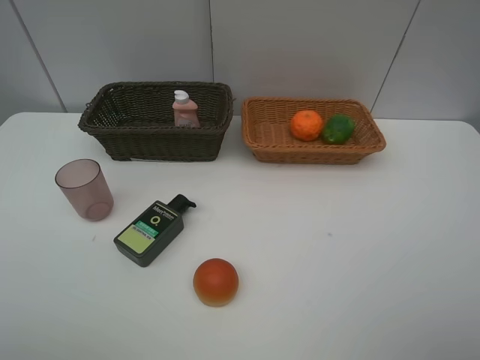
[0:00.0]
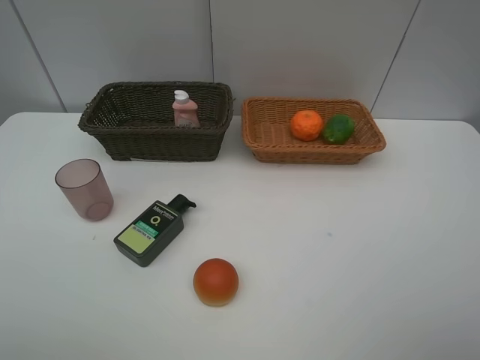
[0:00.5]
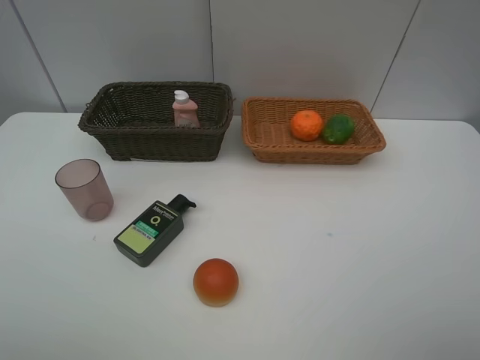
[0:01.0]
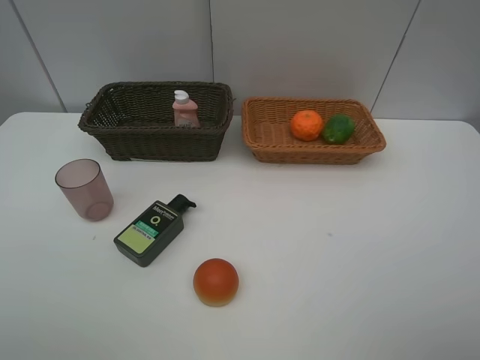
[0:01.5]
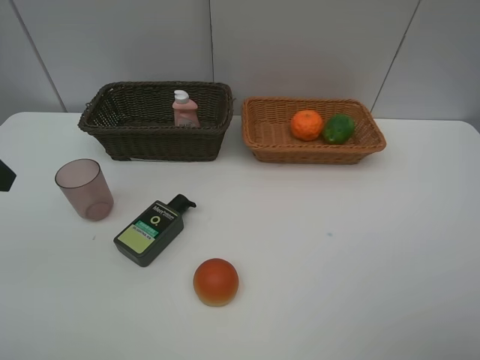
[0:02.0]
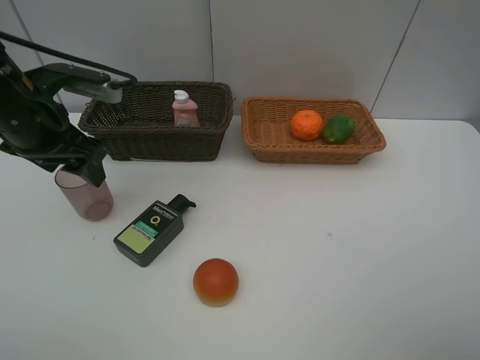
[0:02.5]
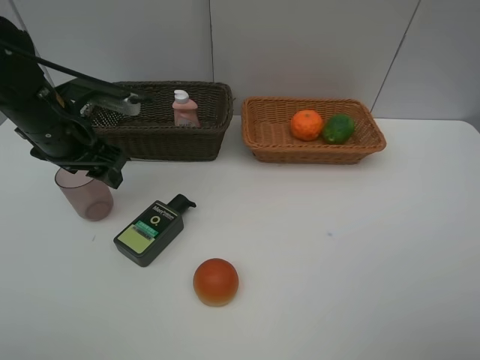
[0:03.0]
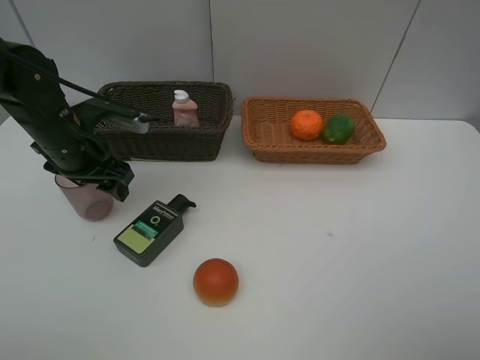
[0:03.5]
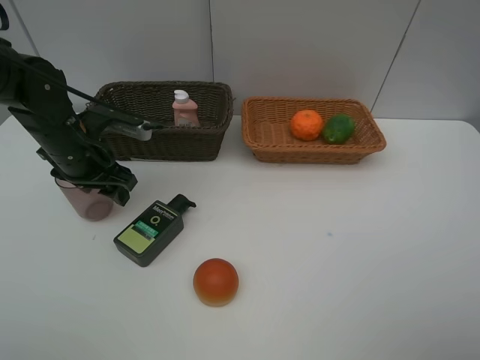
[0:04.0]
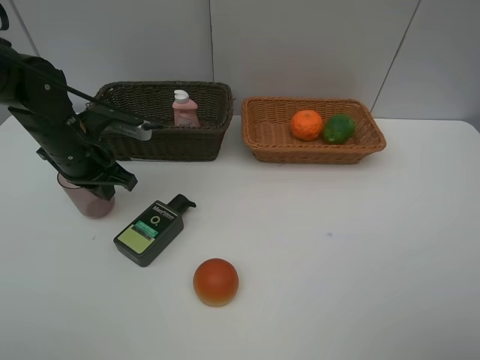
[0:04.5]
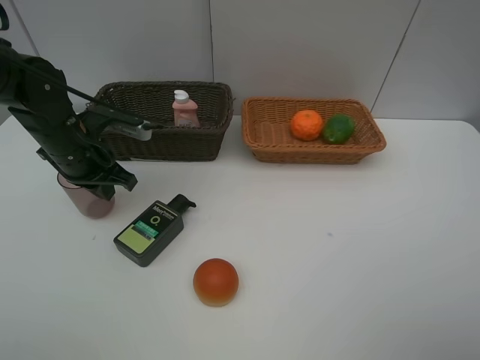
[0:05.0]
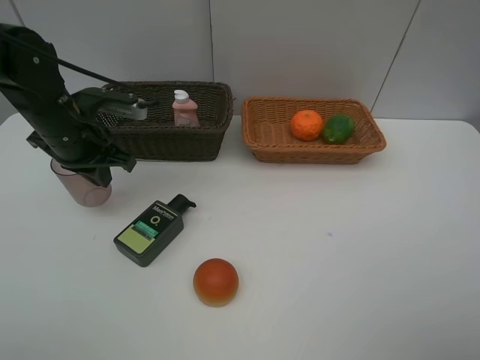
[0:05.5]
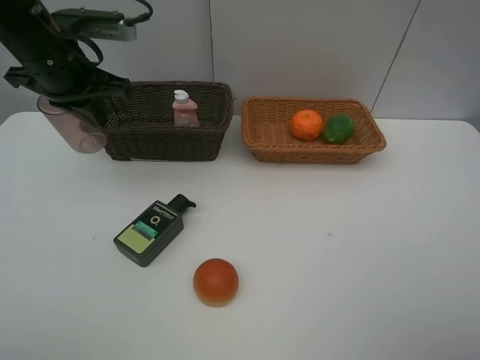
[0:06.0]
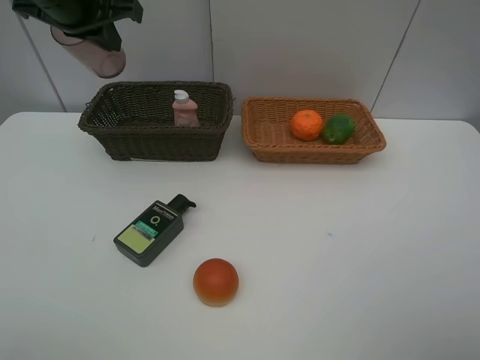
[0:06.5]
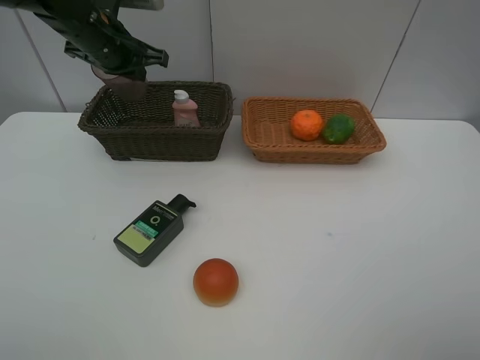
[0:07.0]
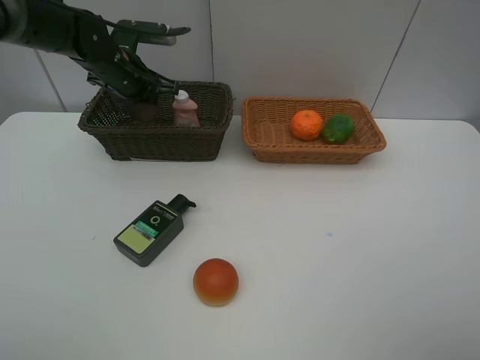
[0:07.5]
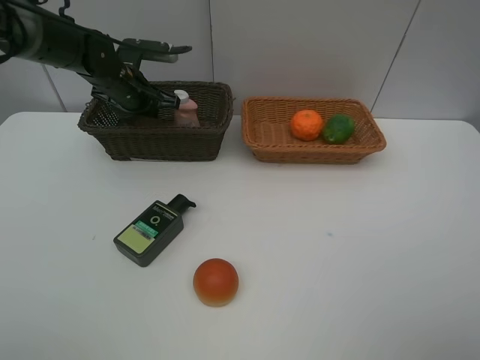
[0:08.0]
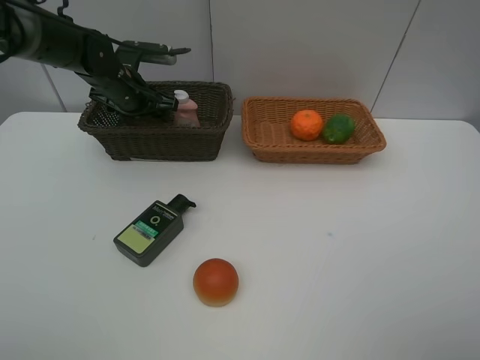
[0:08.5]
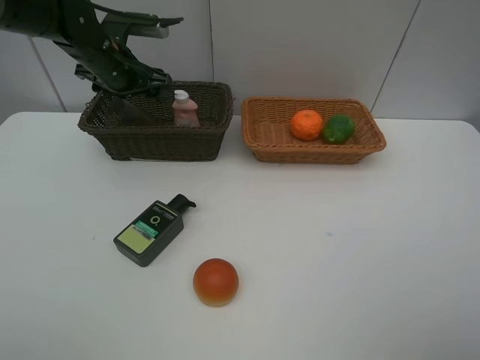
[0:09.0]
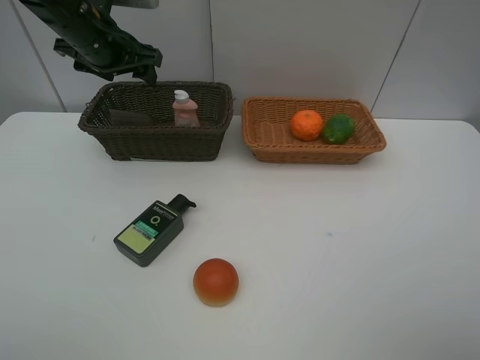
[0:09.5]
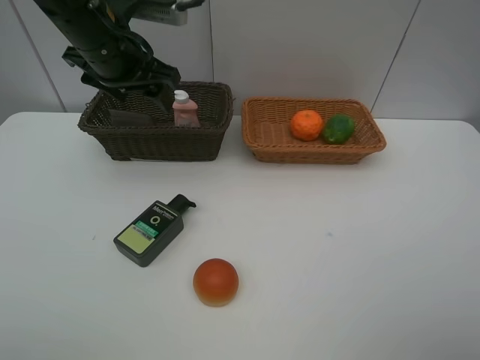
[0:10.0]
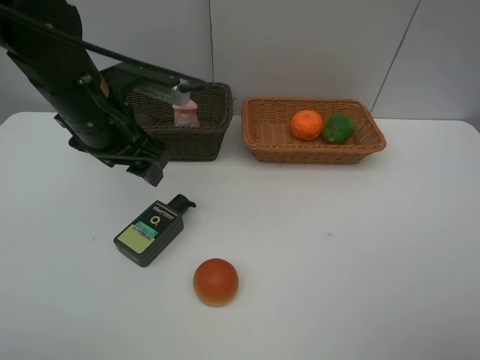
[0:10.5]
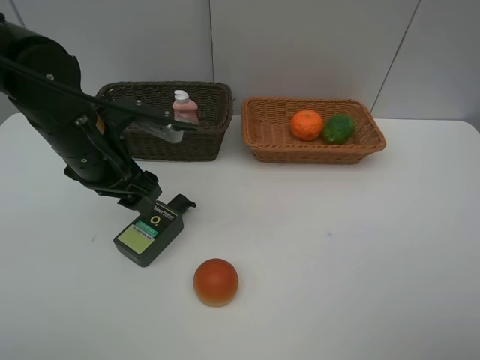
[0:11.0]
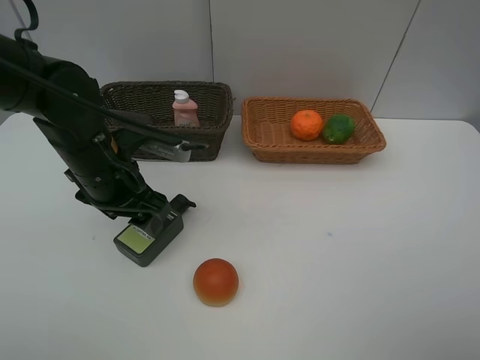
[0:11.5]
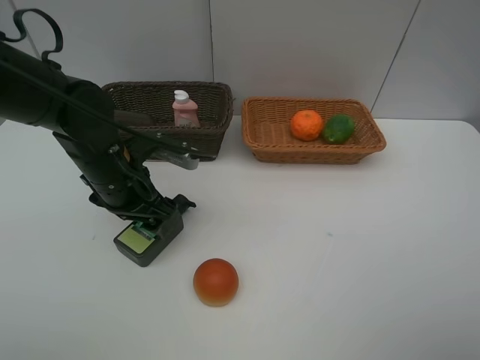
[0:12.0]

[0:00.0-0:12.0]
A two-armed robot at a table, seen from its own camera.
Task of the whole recording: place multiple objects separately in different baskets.
0:02.0 to 0:04.0: The left gripper moves downward, forward and to the right, roughly 20 cm.
0:04.0 to 0:06.0: The left gripper is displaced upward by approximately 10 cm, and closes.
0:06.0 to 0:08.0: The left gripper travels forward and downward by roughly 15 cm.
0:08.0 to 0:10.0: The left gripper is displaced upward and backward by roughly 15 cm, and opens.
0:10.0 to 0:12.0: The left gripper travels downward and backward by some 15 cm.

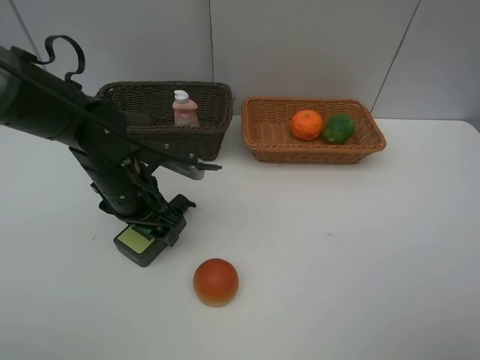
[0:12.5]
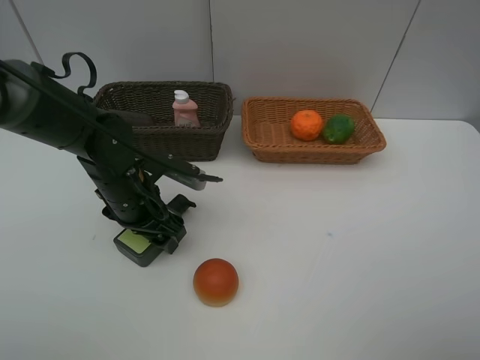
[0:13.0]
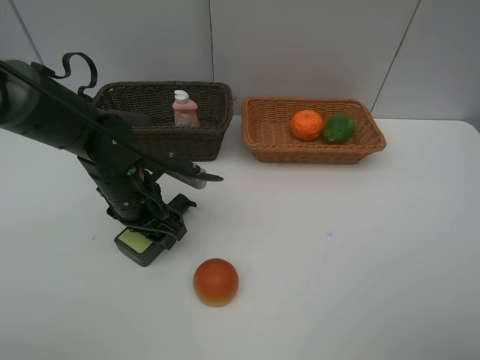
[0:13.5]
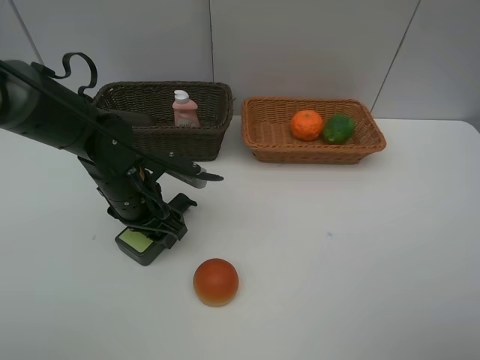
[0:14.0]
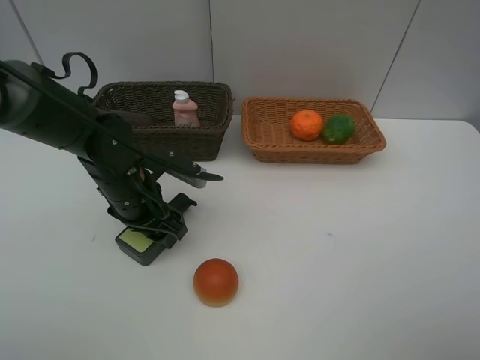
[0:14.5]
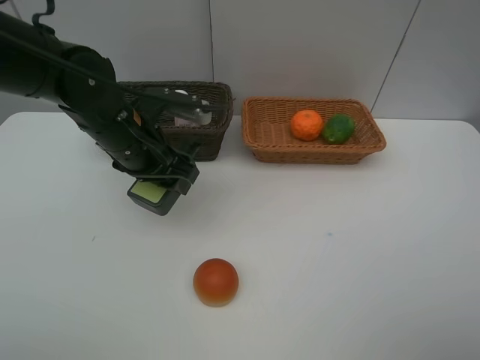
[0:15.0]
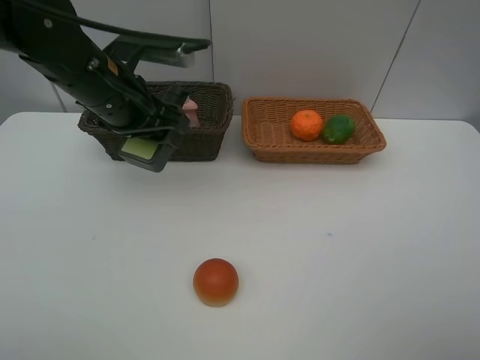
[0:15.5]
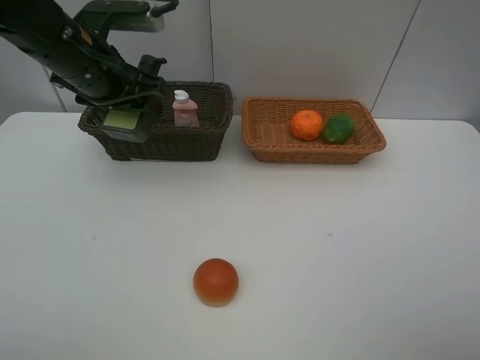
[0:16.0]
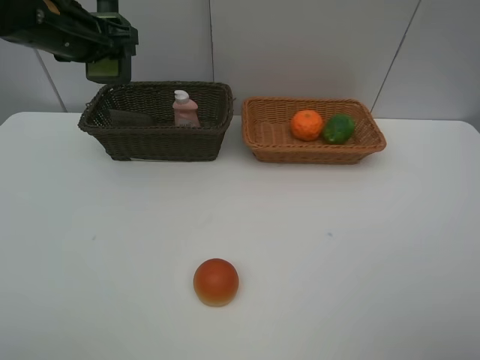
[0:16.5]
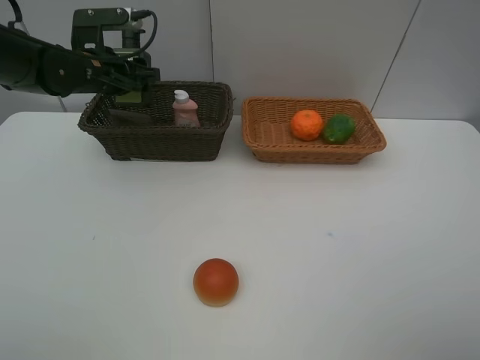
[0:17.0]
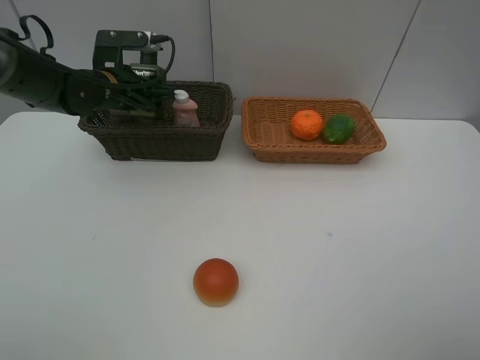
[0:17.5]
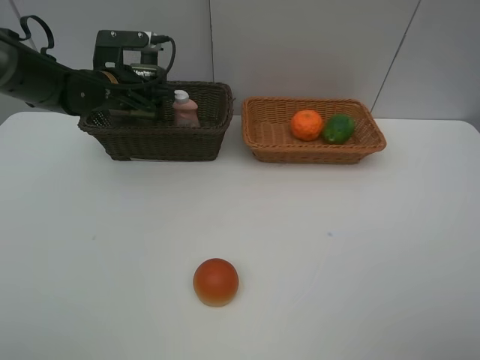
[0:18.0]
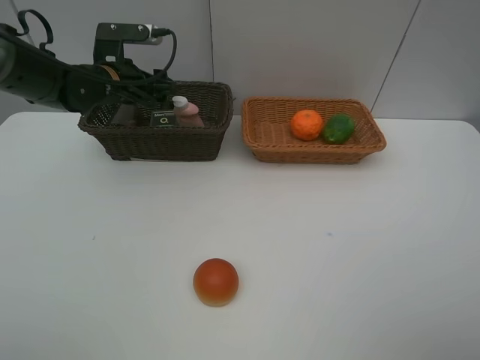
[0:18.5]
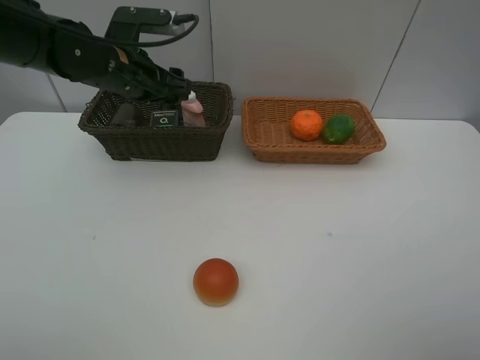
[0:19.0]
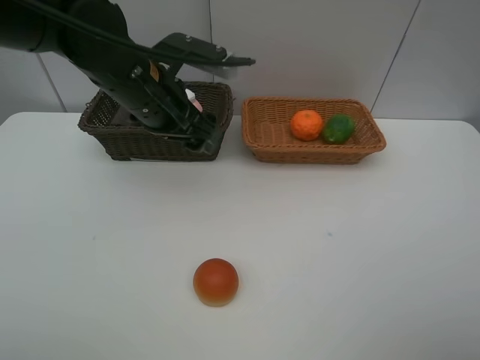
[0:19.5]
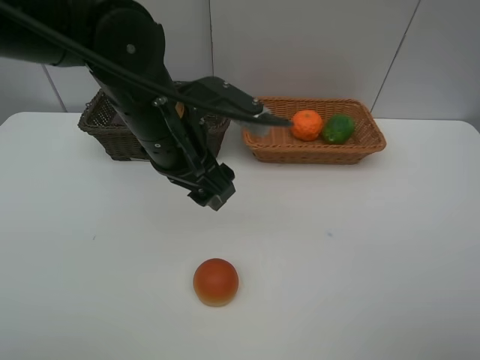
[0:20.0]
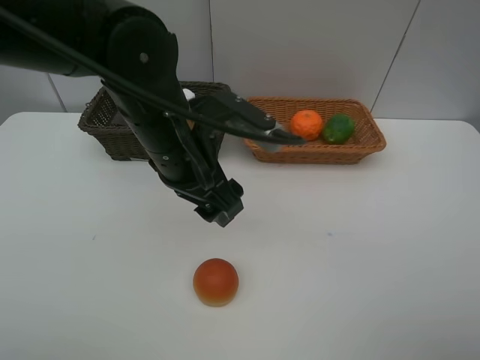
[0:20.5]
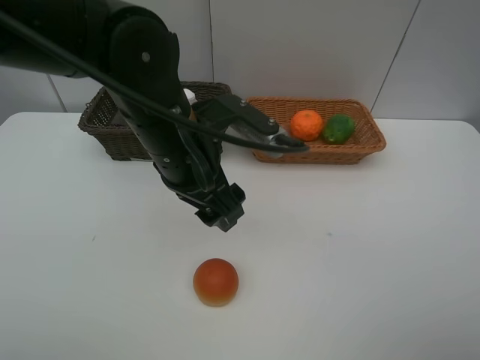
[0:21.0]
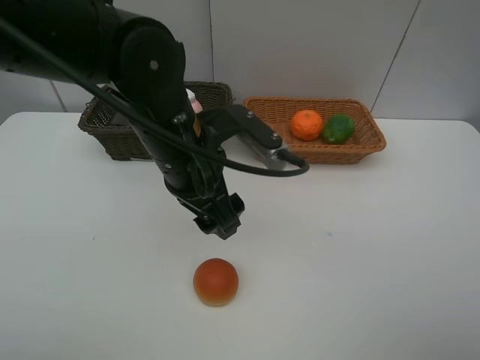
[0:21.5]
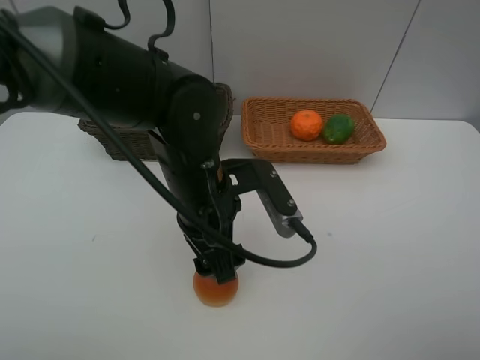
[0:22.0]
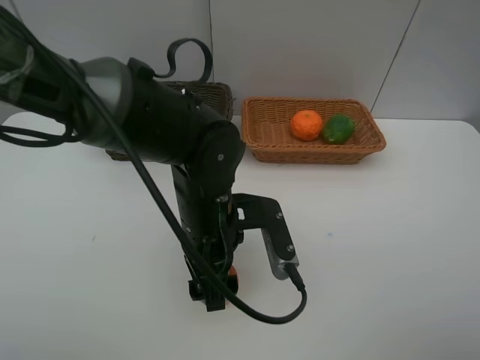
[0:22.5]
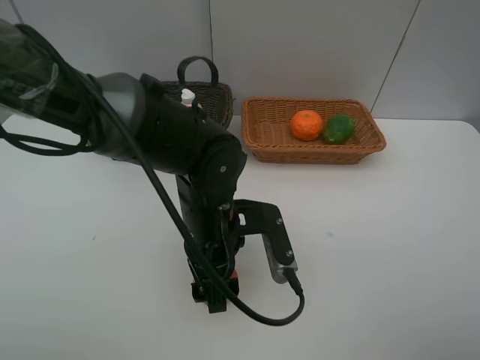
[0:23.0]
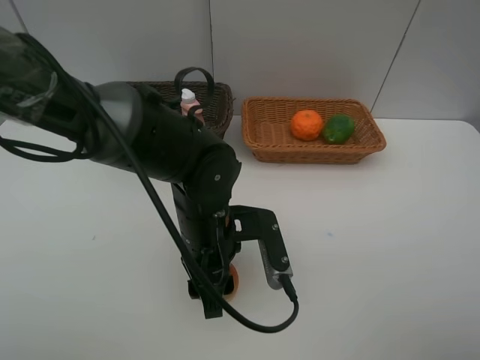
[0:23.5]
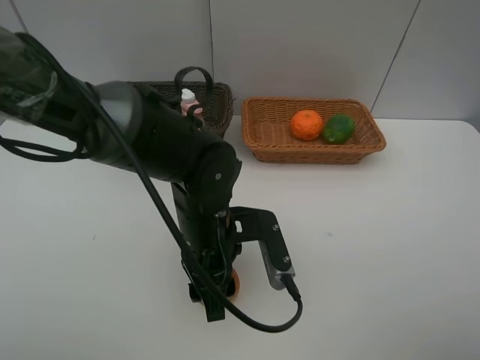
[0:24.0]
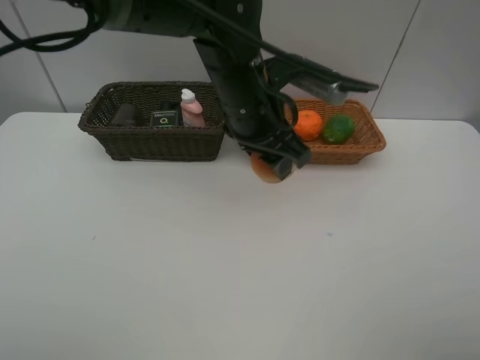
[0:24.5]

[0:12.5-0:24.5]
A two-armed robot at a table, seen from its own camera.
Task of the whole recording: place multiple objects separately in different baskets.
0:12.5 to 0:14.5: The grippers stay close to where they were, moving slightly.
0:14.5 to 0:16.5: The left gripper travels upward, forward and to the left by approximately 20 cm.
0:16.5 to 0:18.5: The left gripper is displaced downward by approximately 10 cm.
0:18.5 to 0:20.5: The left gripper heads backward and to the right, covering roughly 20 cm.
0:20.5 to 0:22.5: The left gripper shifts about 10 cm downward.
0:22.5 to 0:24.5: The left gripper heads forward and upward, covering roughly 15 cm.

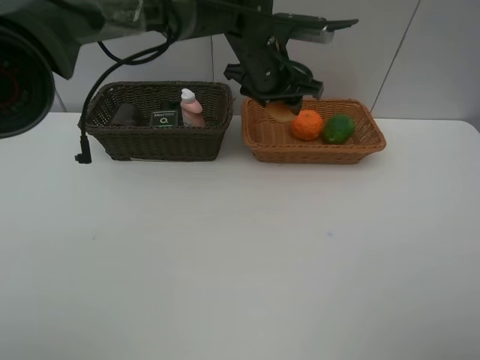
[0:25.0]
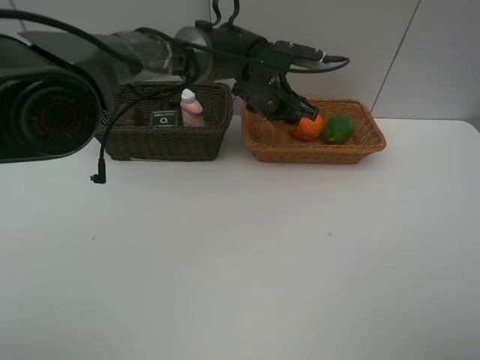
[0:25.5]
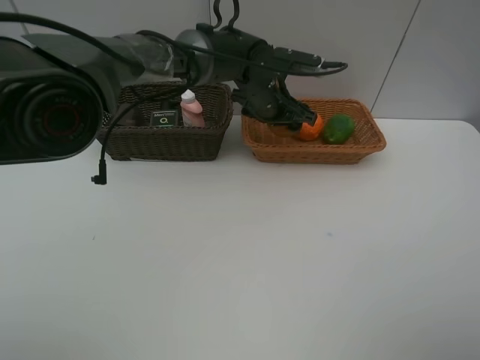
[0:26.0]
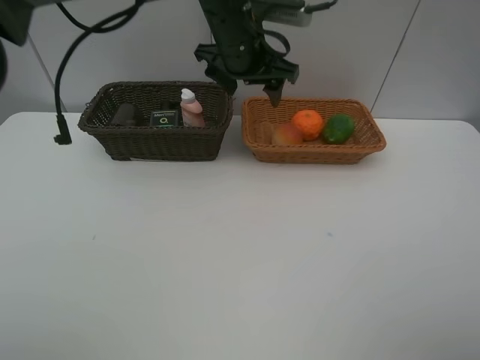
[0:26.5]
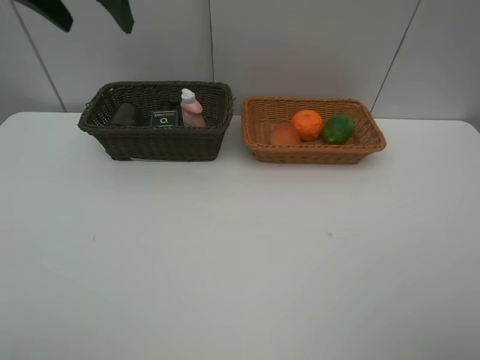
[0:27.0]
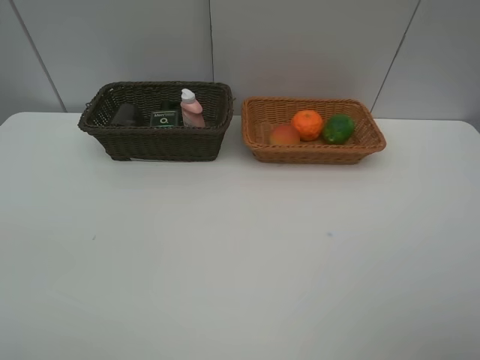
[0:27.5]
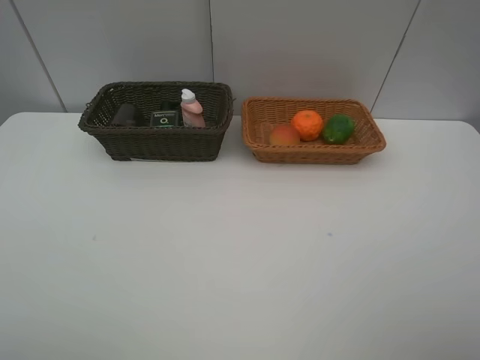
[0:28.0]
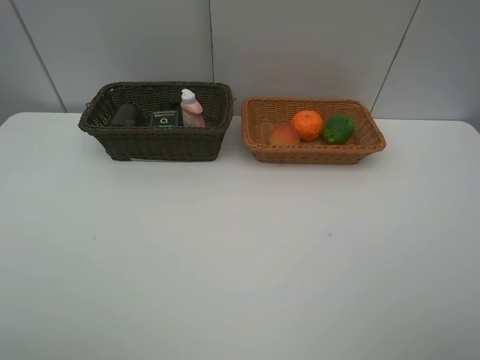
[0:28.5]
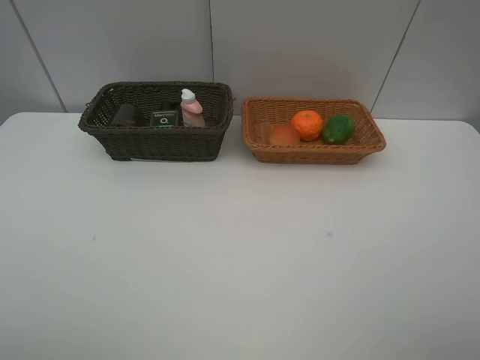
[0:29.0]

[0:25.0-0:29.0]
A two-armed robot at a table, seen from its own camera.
Task of the whole recording: place multiple objects separately in different baskets.
0:25.0 to 0:27.0: The left gripper goes some 30 cm to the left and upward.
0:27.0 to 0:29.0: The left gripper shifts approximately 35 cm backward.
